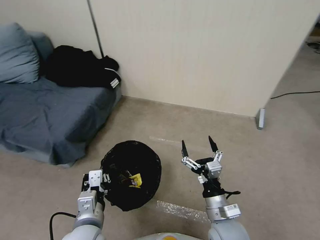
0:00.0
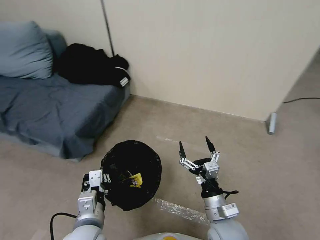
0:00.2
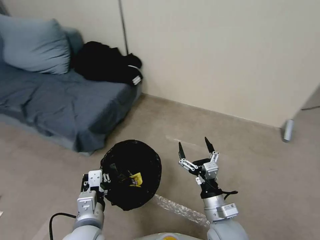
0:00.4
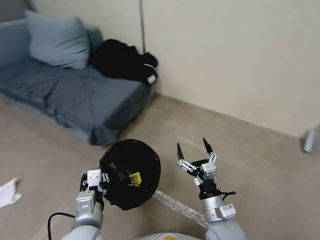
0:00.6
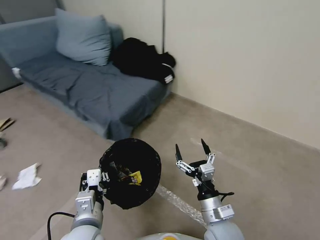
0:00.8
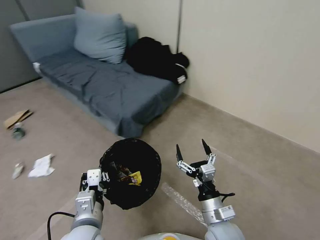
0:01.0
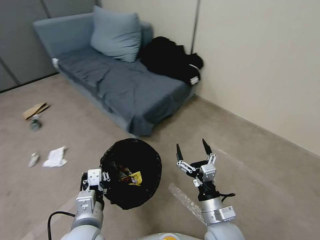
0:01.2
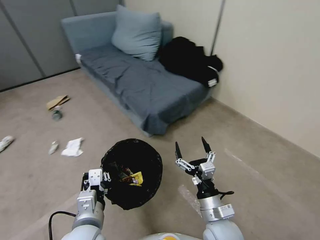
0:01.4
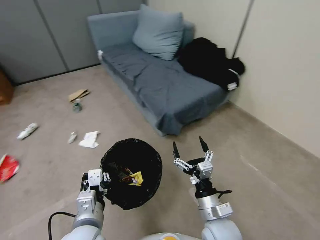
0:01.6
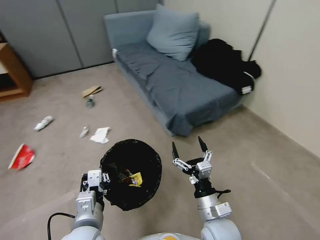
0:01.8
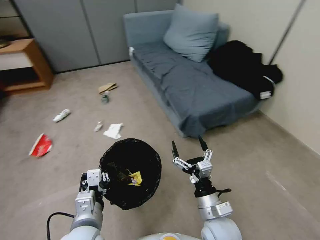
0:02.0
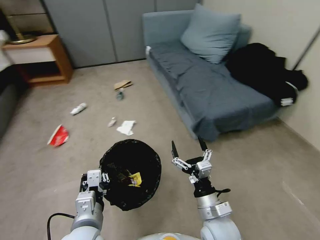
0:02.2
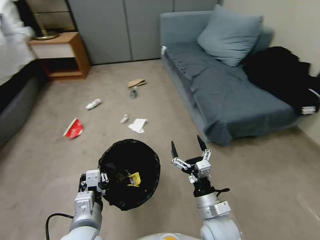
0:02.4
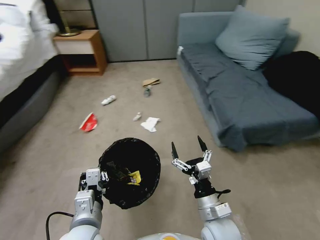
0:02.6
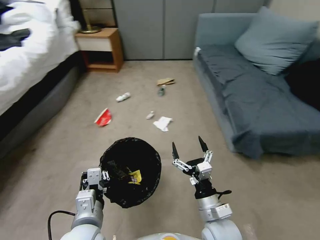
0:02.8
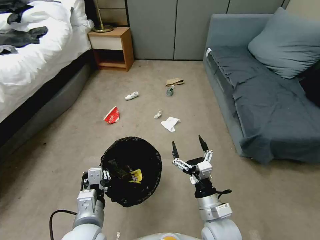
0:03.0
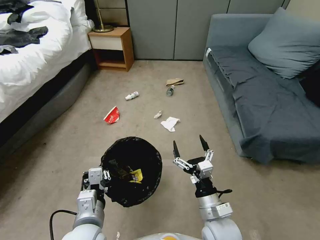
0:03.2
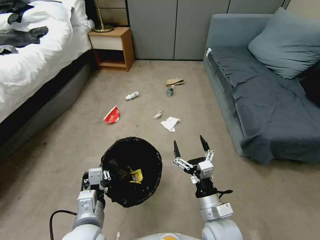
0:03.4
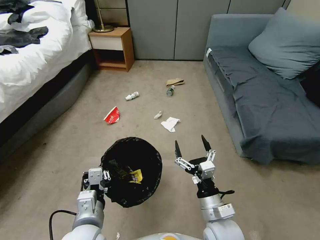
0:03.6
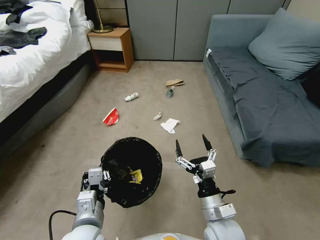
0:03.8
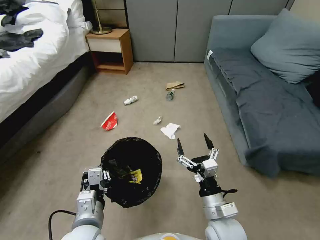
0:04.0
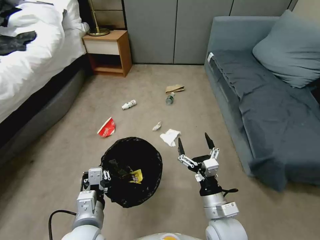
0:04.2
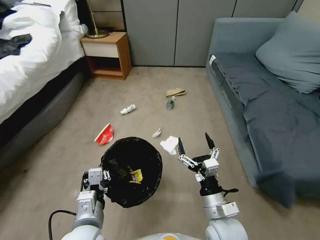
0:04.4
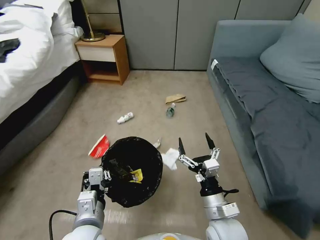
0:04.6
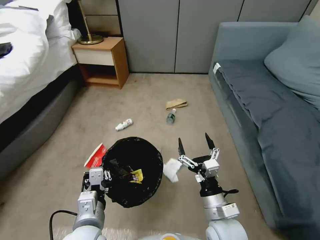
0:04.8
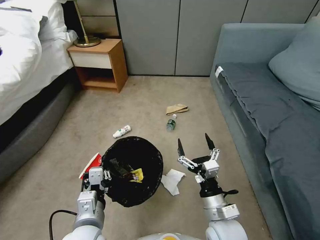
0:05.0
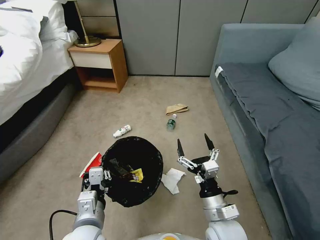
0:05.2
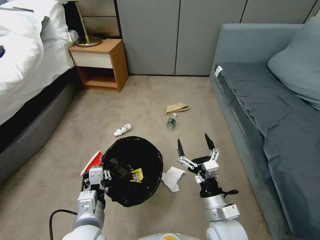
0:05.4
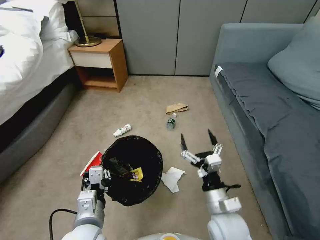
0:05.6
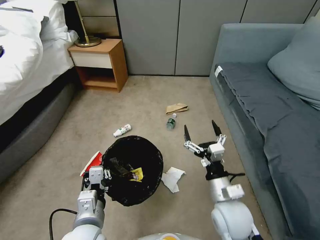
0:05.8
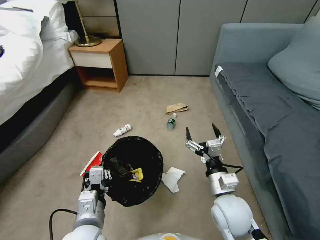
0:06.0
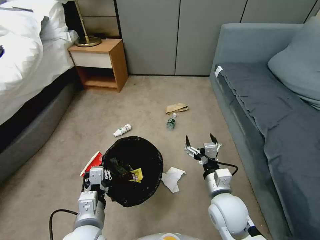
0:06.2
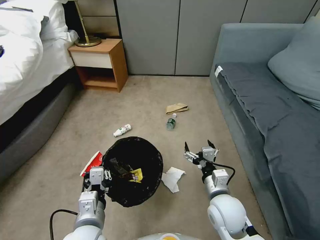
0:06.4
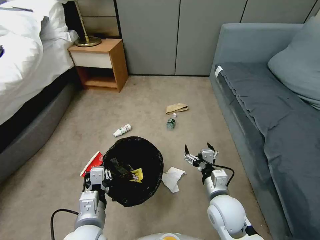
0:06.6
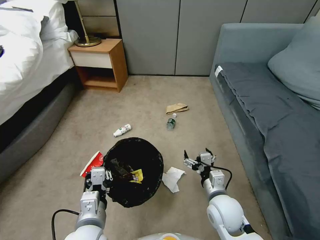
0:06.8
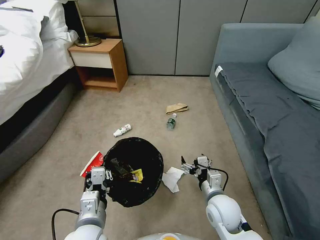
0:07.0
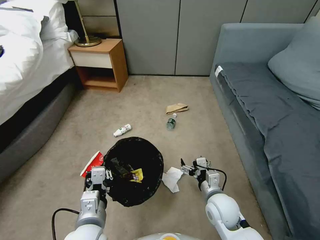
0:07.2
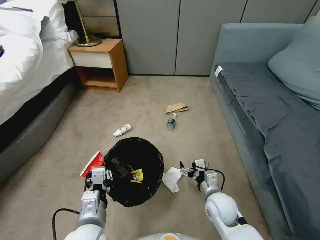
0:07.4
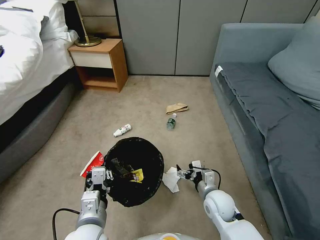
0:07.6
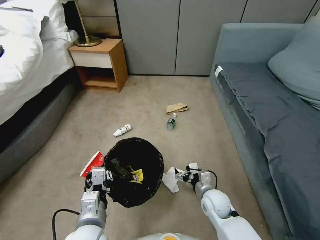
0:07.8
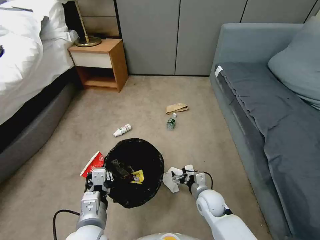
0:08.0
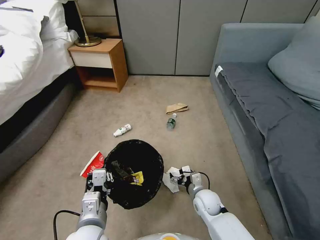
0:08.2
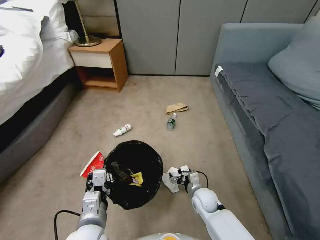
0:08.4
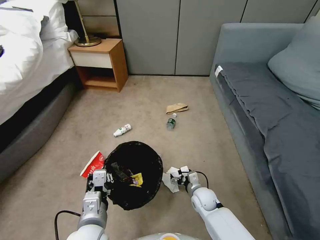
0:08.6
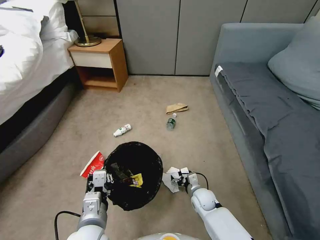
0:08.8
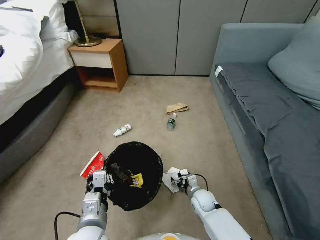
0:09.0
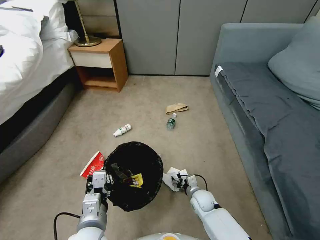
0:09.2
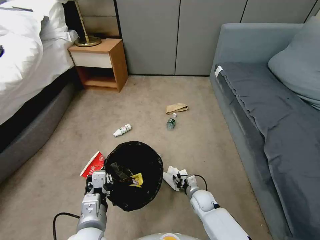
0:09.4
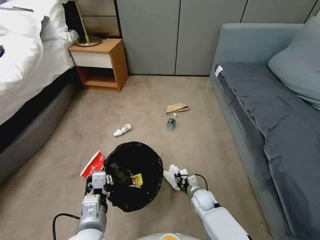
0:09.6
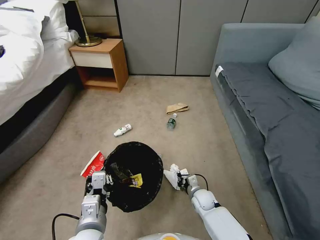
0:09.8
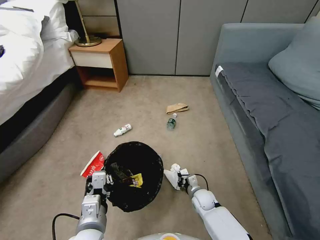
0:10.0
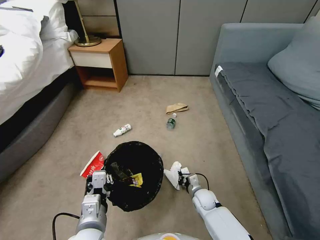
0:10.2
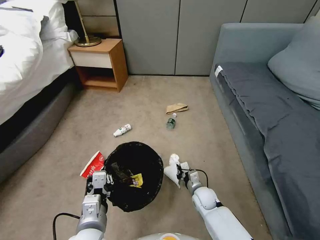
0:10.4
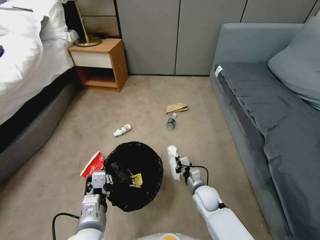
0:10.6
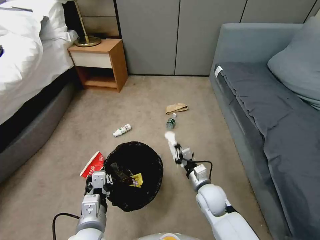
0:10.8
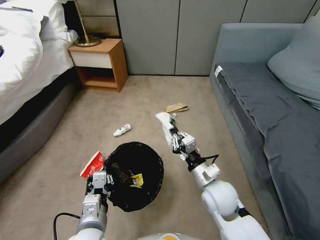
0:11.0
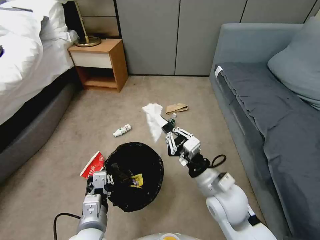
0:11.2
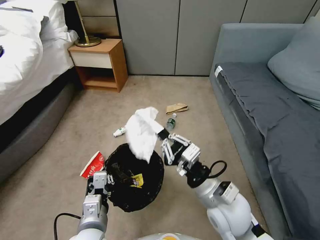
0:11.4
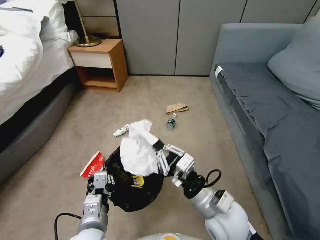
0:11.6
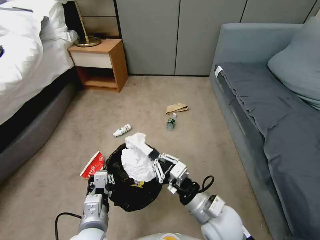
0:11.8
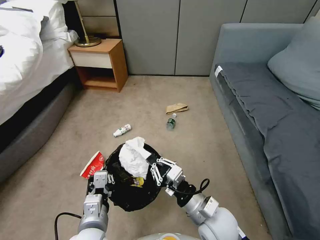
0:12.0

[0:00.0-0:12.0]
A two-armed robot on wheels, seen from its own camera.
Task of the whole recording: Pick up the trash bin, then pick up the garbage from the floor and place it into the trash bin.
0:04.4 to 0:06.0: The right gripper shifts by some 5 cm.
0:06.0 to 0:07.6: The right gripper travels downward by roughly 10 cm.
0:07.6 to 0:09.0: The right gripper heads downward, covering about 10 cm.
0:09.0 to 0:10.4: The right gripper closes up.
0:10.4 to 0:12.0: The right gripper moves upward and backward, approximately 25 cm.

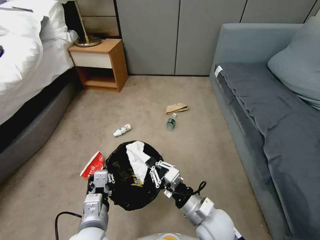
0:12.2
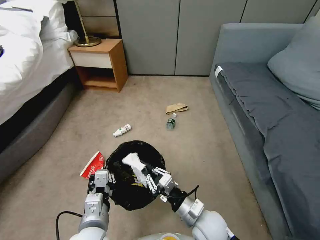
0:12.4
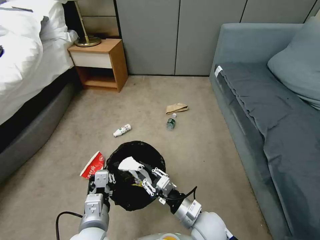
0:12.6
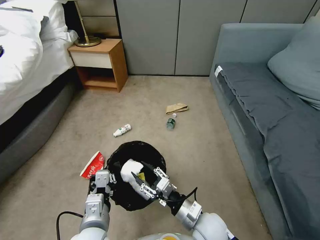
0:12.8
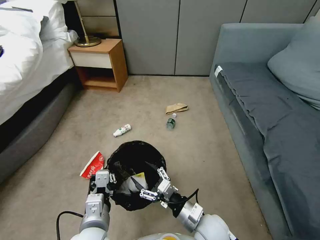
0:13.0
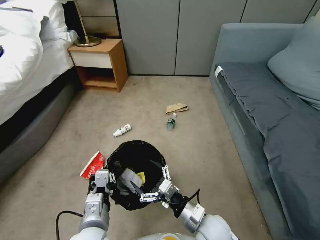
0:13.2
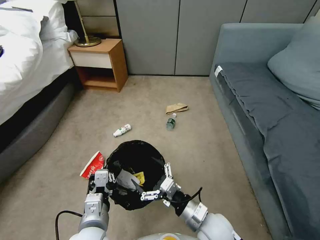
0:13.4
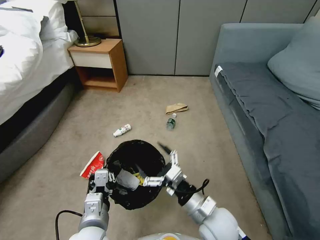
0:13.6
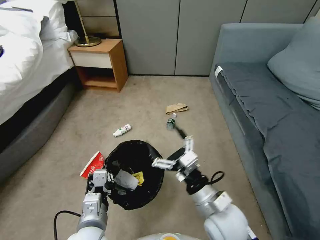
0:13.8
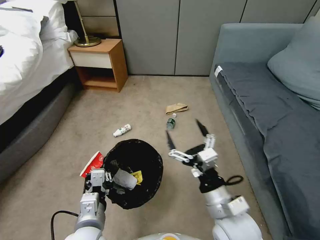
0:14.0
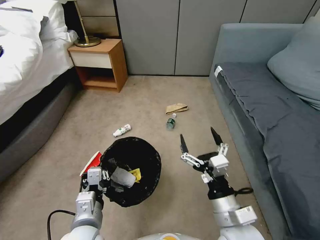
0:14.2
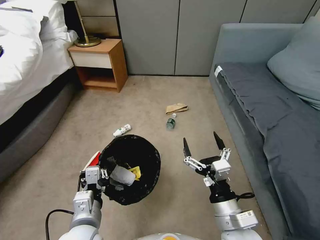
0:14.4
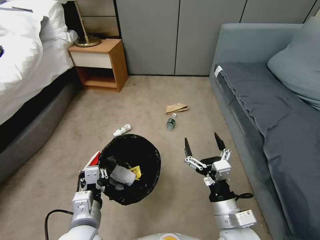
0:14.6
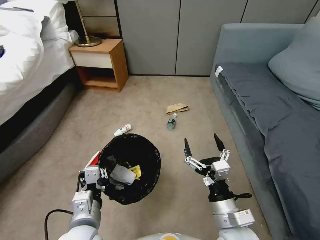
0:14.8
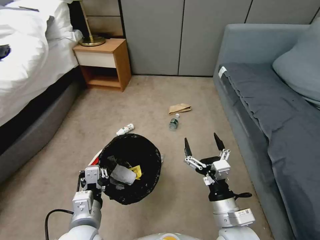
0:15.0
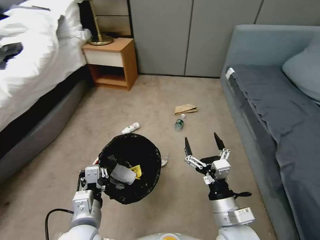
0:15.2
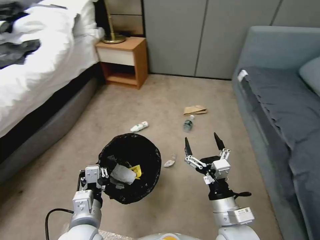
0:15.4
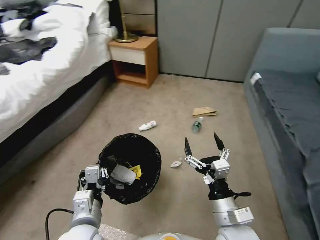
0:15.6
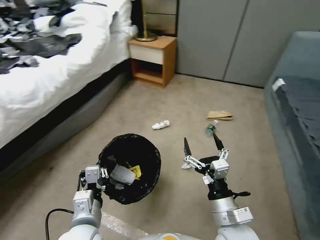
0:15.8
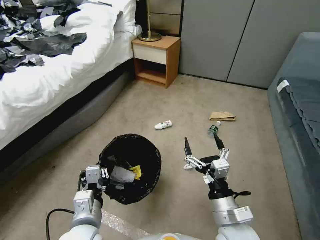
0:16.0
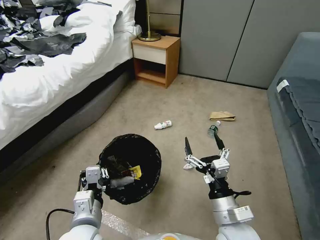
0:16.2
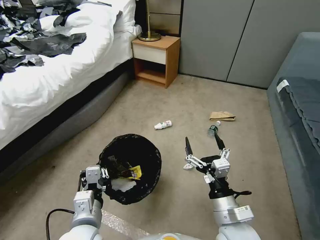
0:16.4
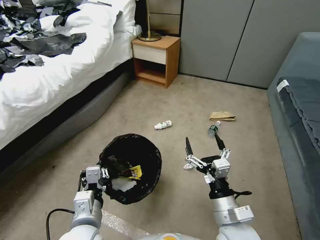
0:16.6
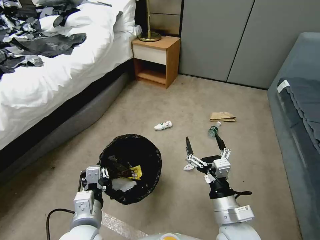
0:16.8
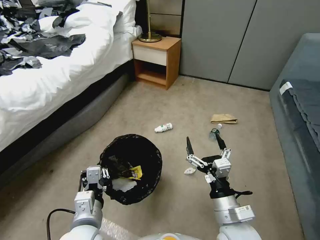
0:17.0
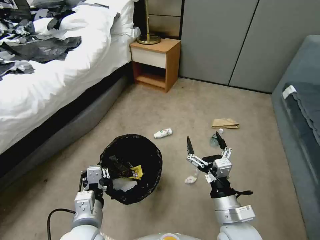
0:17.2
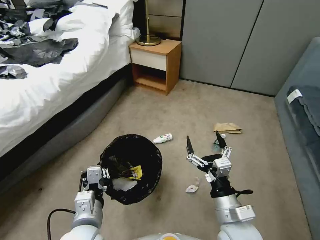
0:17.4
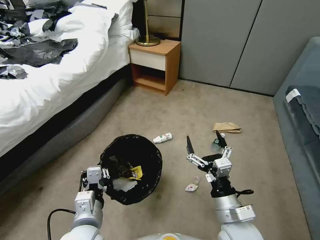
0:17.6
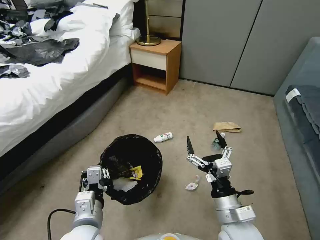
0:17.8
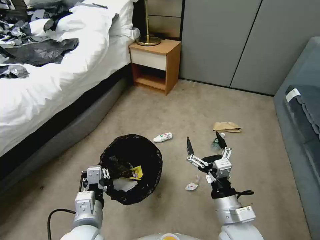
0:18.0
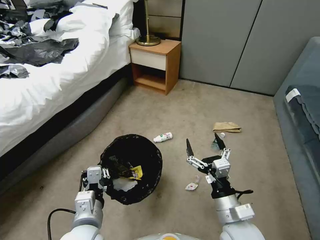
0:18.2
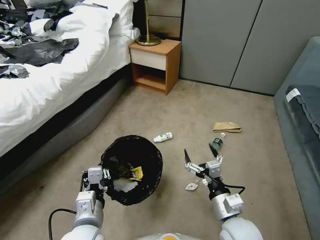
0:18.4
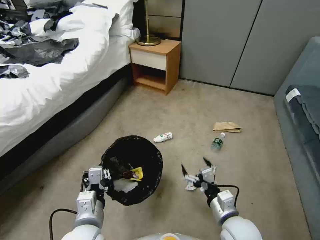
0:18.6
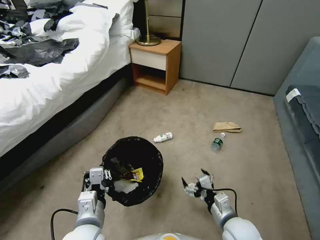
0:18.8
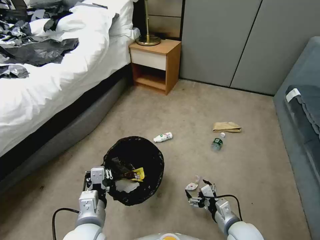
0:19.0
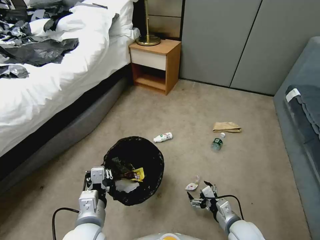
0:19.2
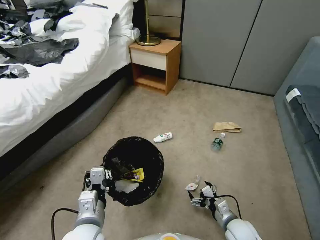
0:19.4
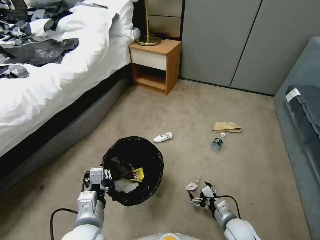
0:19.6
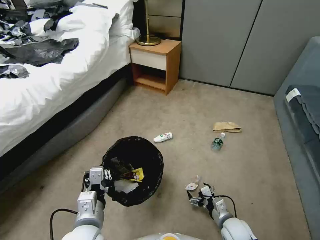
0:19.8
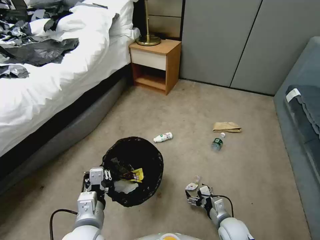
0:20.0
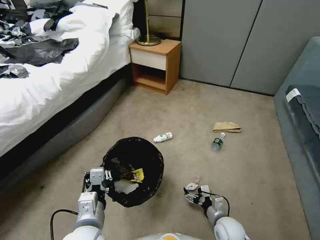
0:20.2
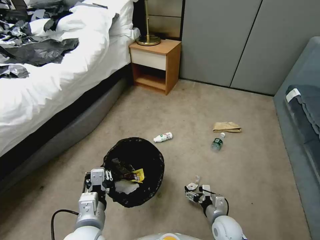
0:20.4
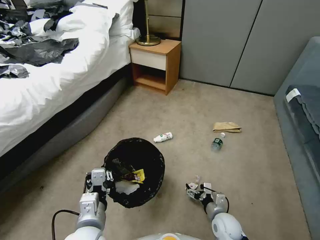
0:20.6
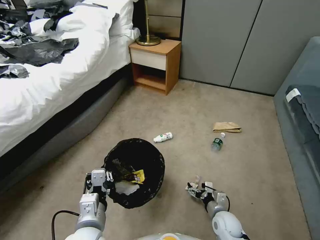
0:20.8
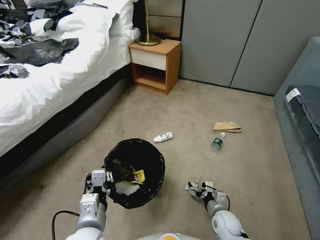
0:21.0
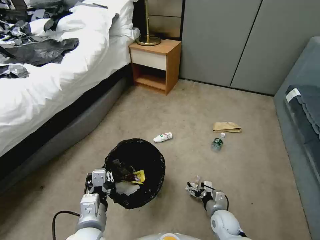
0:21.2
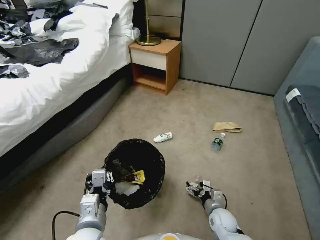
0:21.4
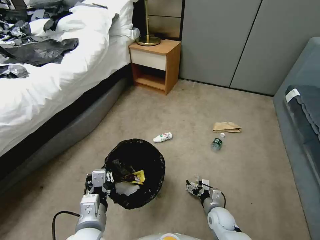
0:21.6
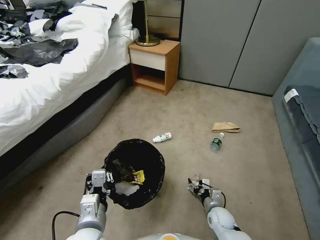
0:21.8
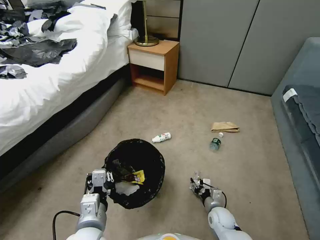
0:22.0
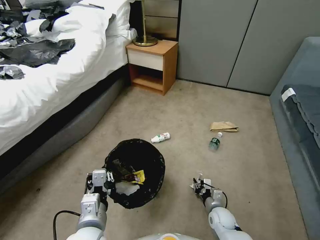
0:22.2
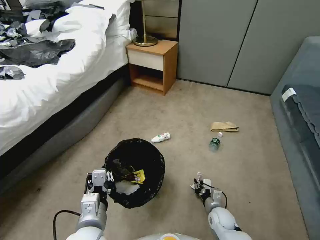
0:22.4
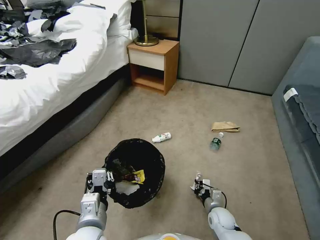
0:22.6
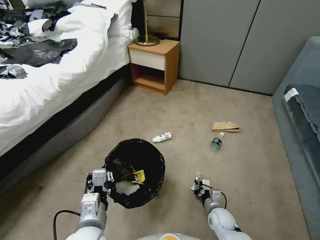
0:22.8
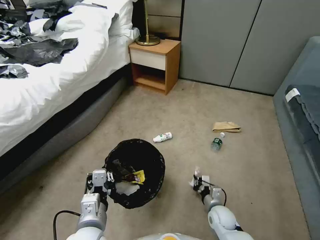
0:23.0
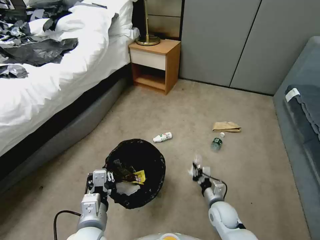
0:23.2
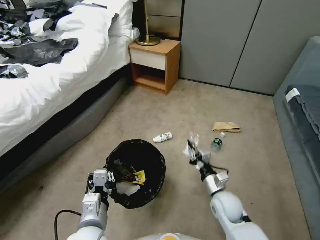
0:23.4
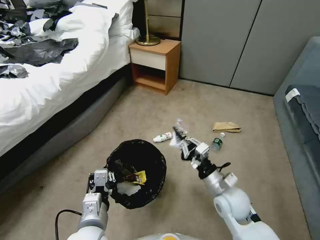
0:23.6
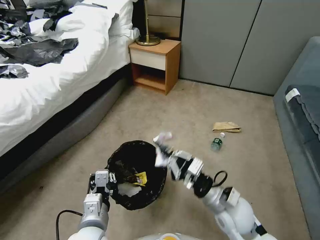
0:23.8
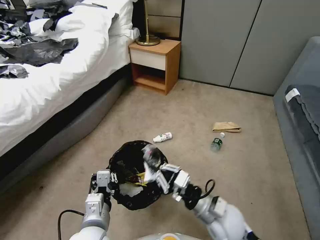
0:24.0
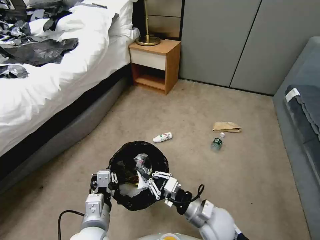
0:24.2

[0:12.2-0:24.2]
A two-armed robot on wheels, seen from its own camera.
Task of the whole recording: Pick up the trash bin, then pick up the garbage from the floor and place it into the trash bin.
0:12.2 to 0:13.8: The right gripper travels upward by approximately 5 cm, and opens up.
0:13.8 to 0:15.2: The right gripper ends up about 5 cm from where it was.
0:18.2 to 0:19.8: The right gripper shifts roughly 20 cm downward.
0:19.8 to 0:21.2: The right gripper shifts by some 5 cm.
0:21.2 to 0:22.6: The right gripper closes its fingers.
0:22.6 to 0:24.2: The right gripper moves upward and to the left, approximately 20 cm.
